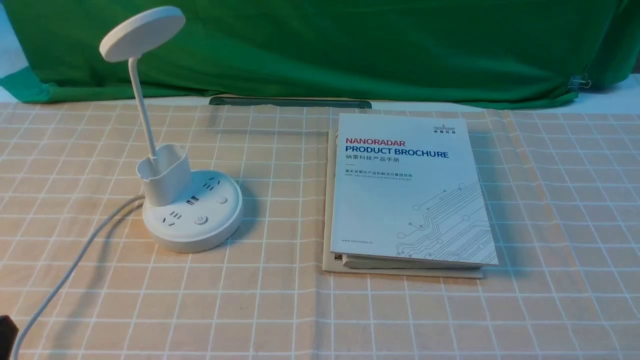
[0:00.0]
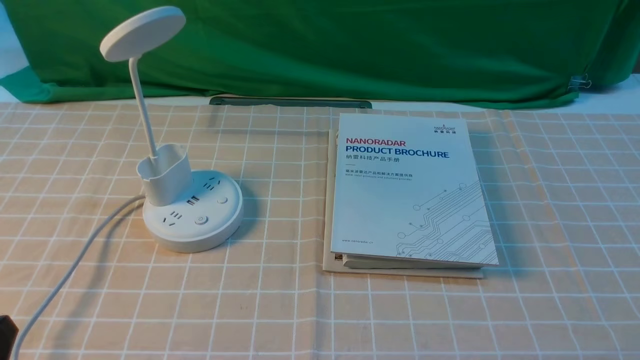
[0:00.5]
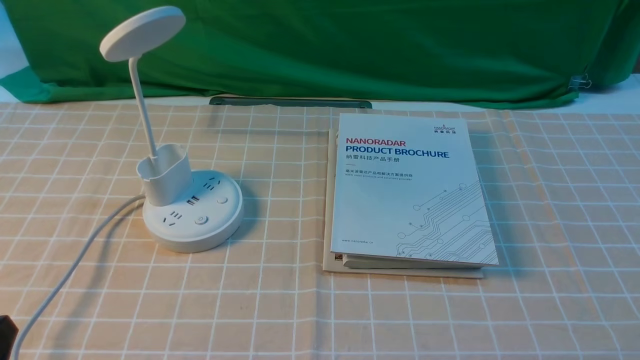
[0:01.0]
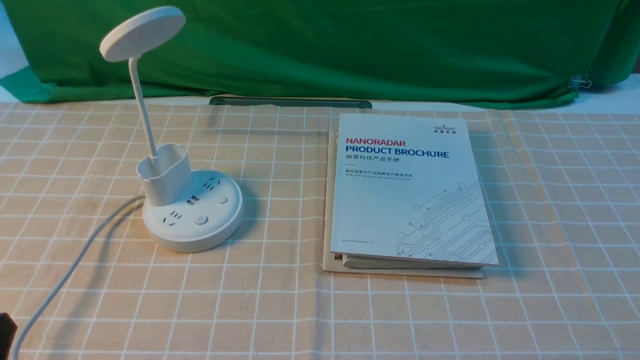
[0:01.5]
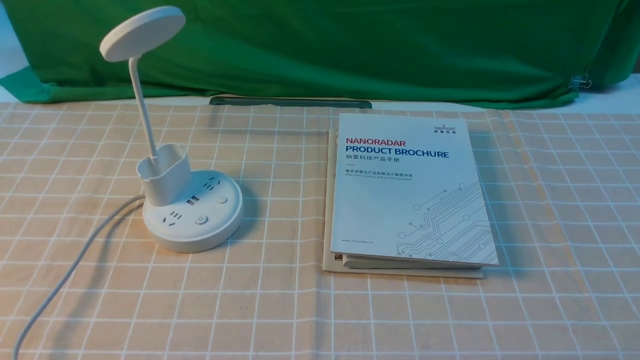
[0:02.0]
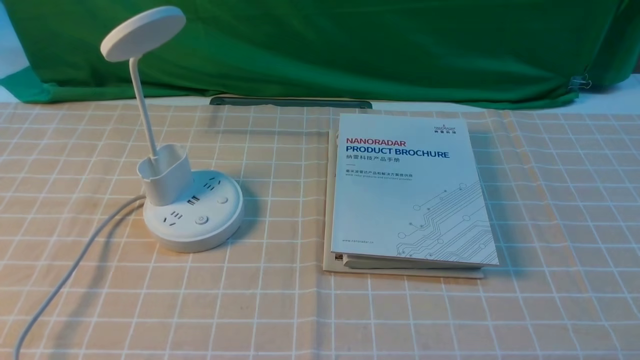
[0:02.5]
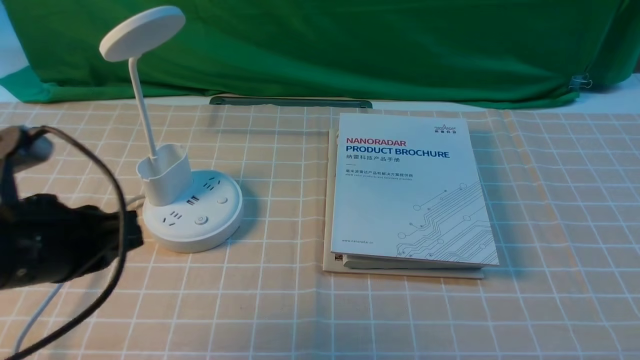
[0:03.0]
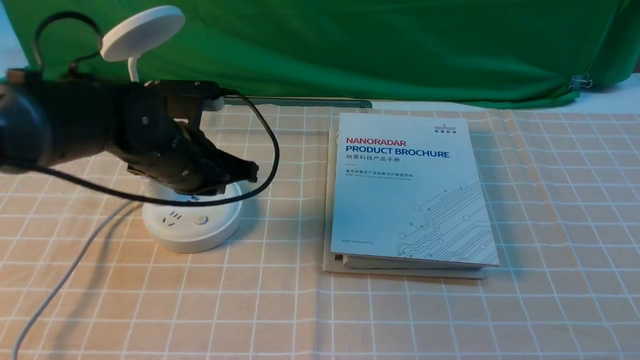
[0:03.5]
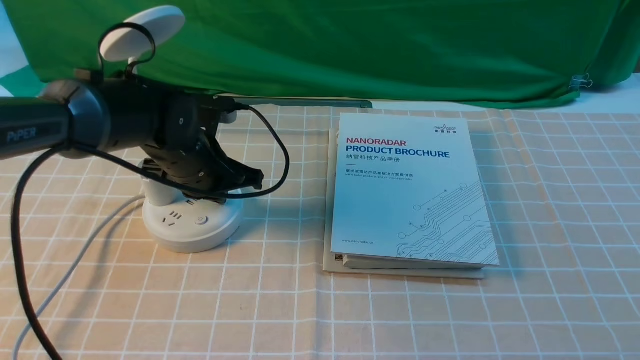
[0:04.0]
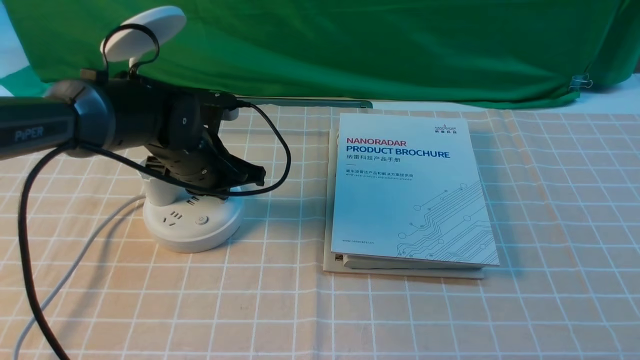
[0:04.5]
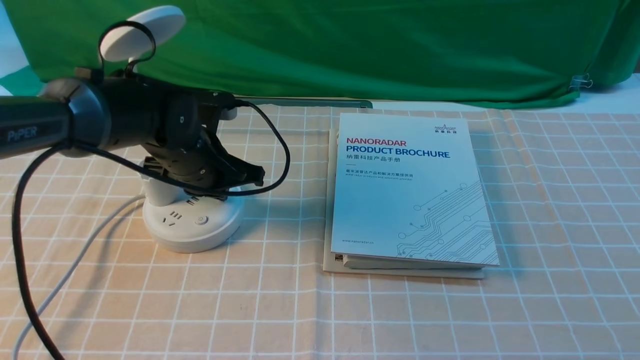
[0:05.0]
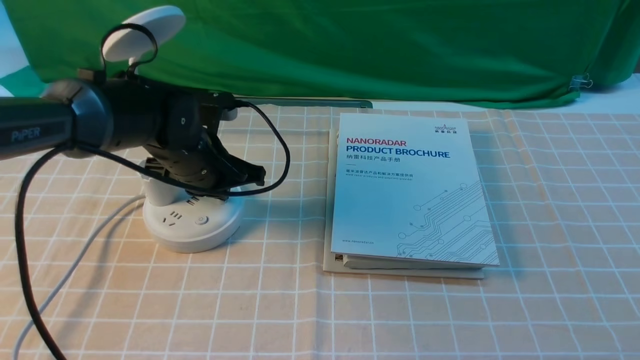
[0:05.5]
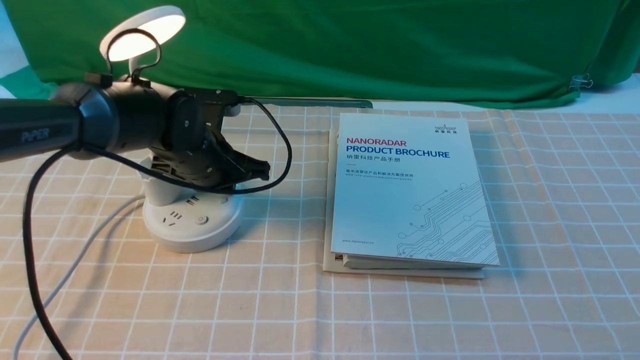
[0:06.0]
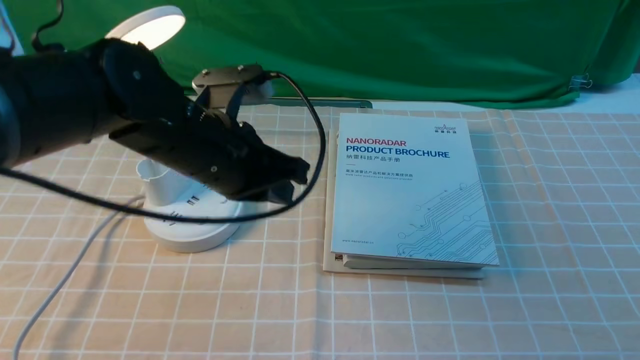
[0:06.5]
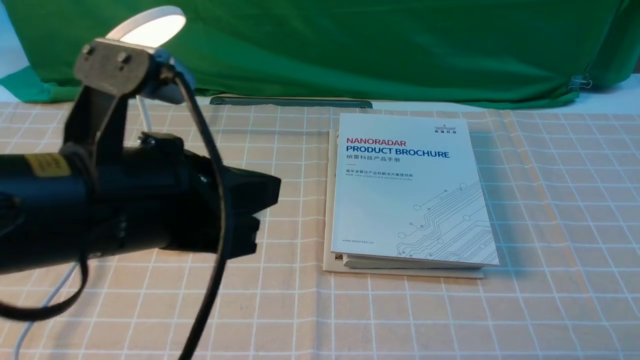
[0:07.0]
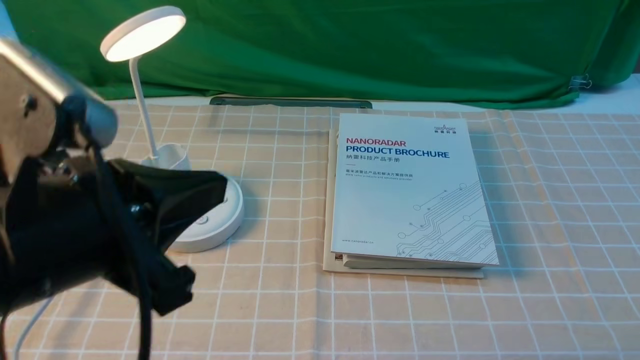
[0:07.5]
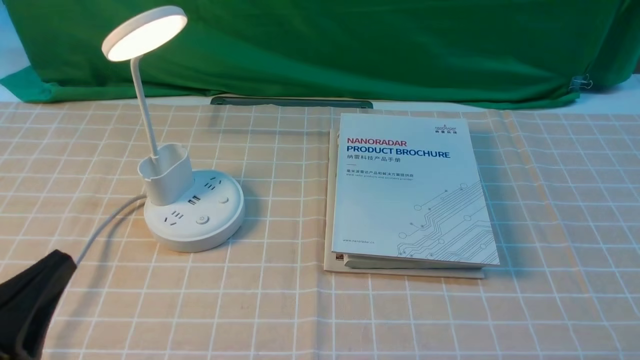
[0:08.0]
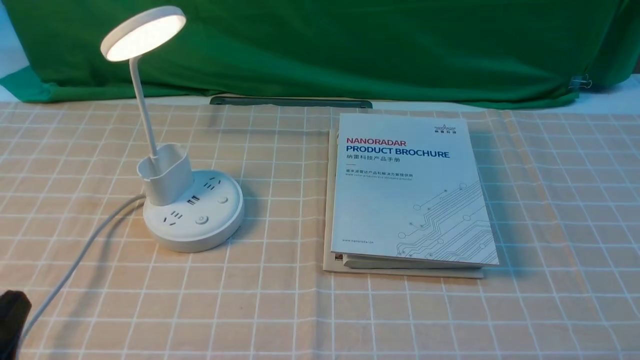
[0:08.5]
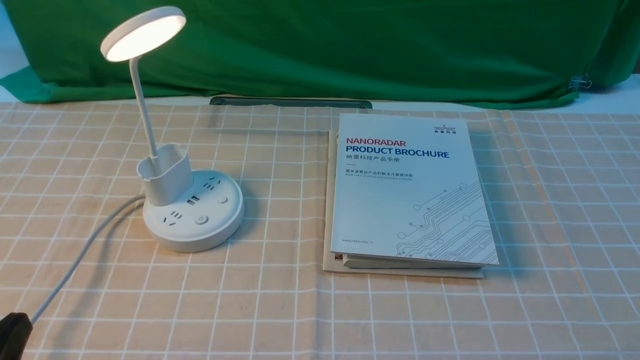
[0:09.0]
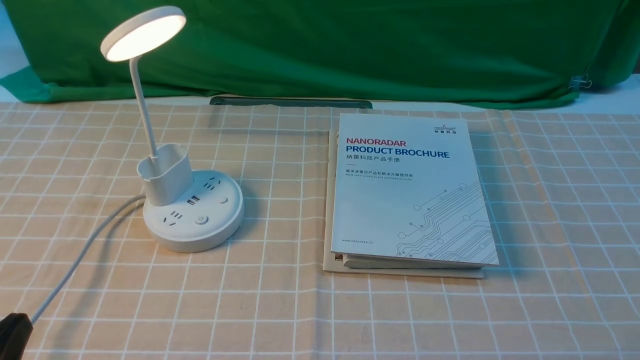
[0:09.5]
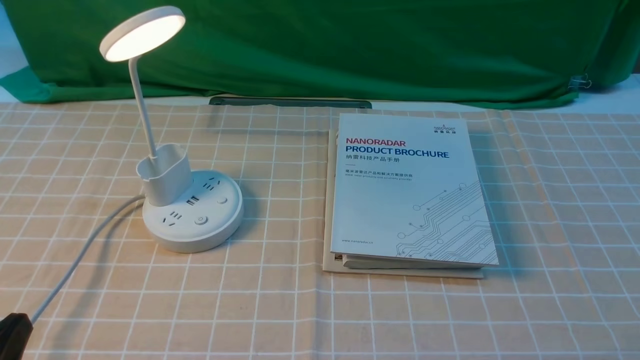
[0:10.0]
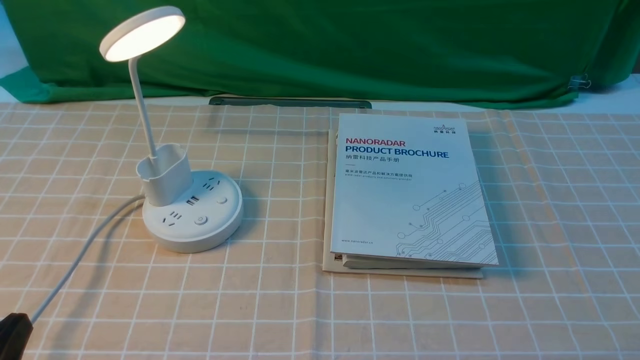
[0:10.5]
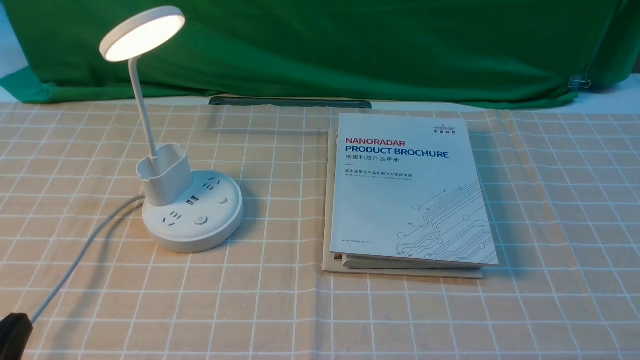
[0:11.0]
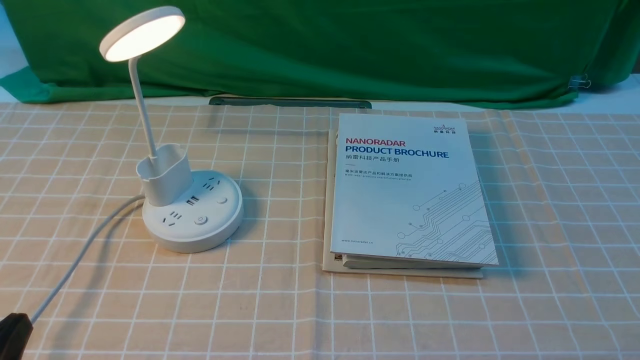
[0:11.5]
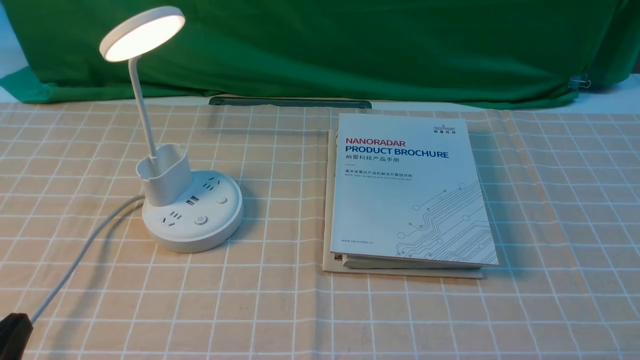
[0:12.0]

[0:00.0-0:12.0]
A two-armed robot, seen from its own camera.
Step, 0:00.0 to 0:06.5: use the left arm to press the button switch on the lamp holder.
0:02.0 to 0:04.0: The left gripper shifts roughly 35 cm forward, and closes.
0:04.0 to 0:06.0: The left gripper opens up.
0:06.0 to 0:08.0: The left gripper moves backward, about 30 cm.
0:08.0 to 0:10.0: The left gripper moves about 5 cm.
0:10.0 to 0:12.0: Both grippers stay about where they are.

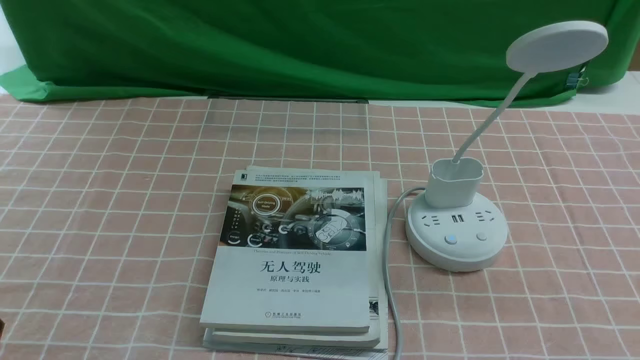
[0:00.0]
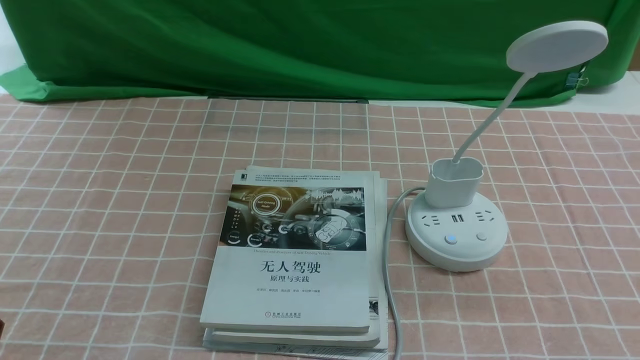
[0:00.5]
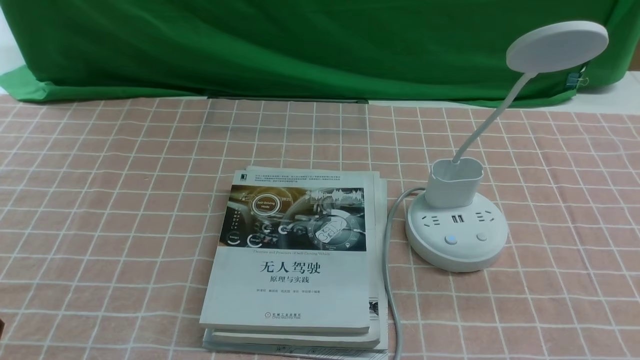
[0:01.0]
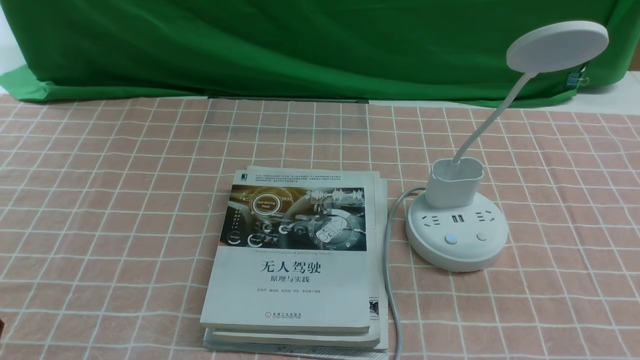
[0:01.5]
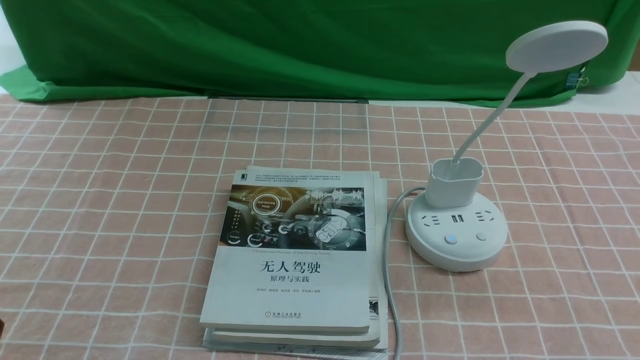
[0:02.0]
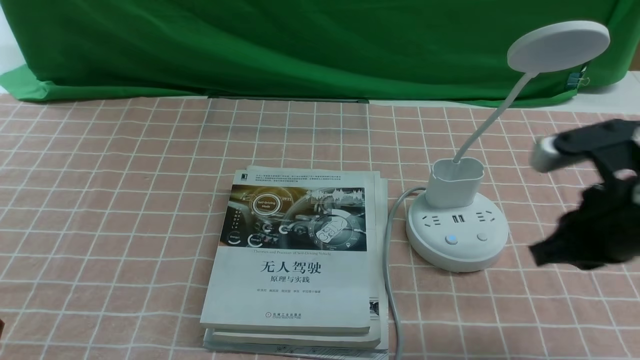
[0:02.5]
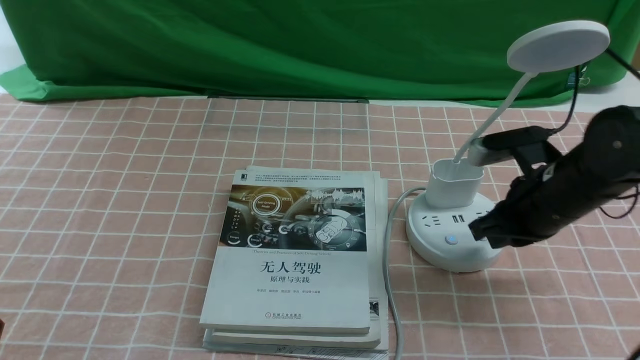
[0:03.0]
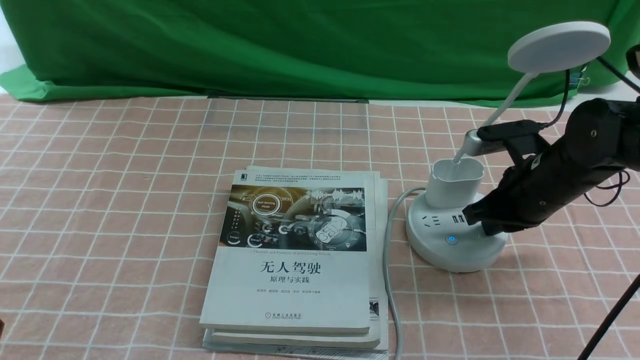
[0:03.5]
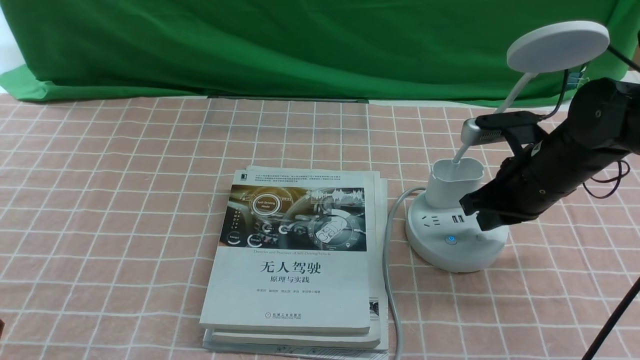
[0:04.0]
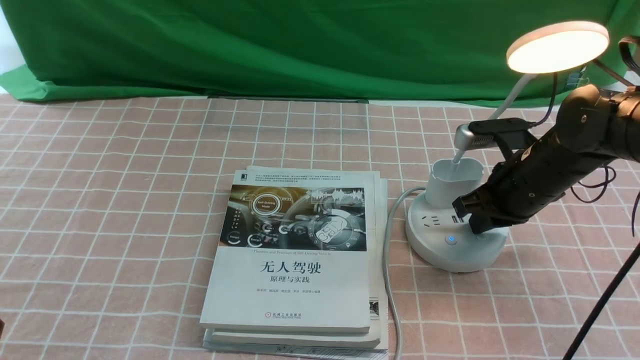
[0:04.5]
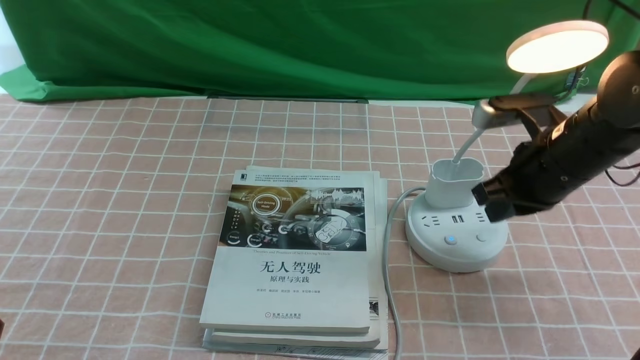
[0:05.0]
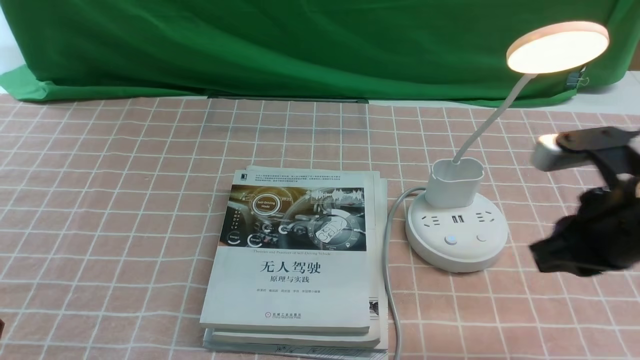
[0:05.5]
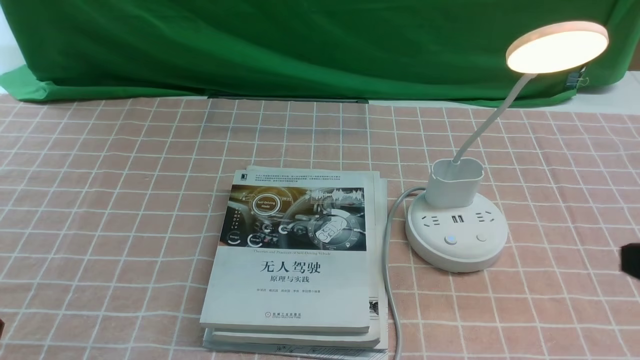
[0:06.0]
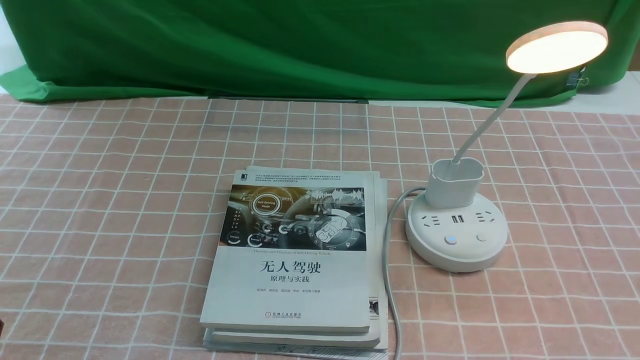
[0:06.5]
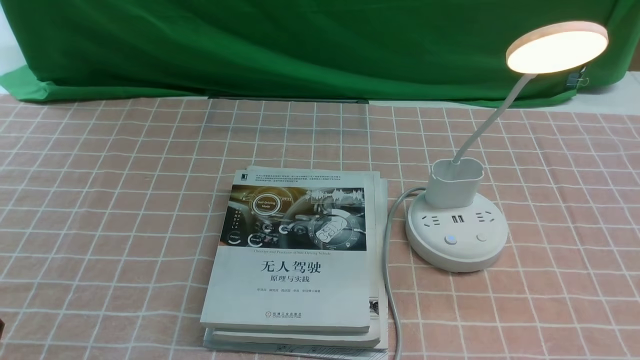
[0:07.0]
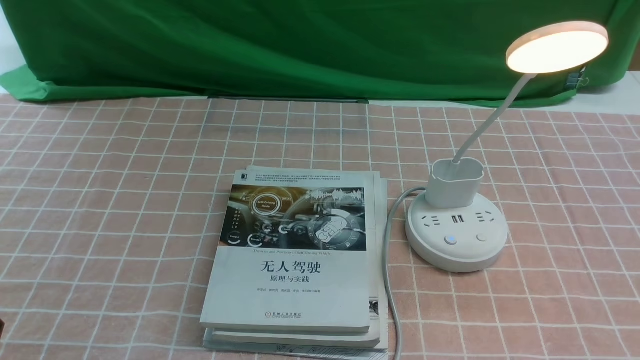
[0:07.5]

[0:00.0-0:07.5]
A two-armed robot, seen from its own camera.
Step, 0:00.0 to 0:04.5: use the right arm to press the button switch on the lamp holder.
0:02.0 to 0:04.0: The right gripper is displaced forward by some 25 cm.
0:04.0 to 0:05.5: The right gripper heads backward and upward, covering some 15 cm.
0:05.5 to 0:07.5: The right gripper heads backward and downward, covering about 20 cm.
